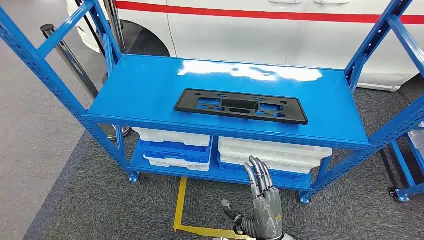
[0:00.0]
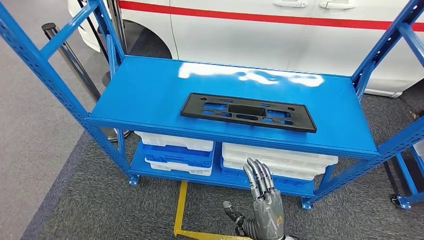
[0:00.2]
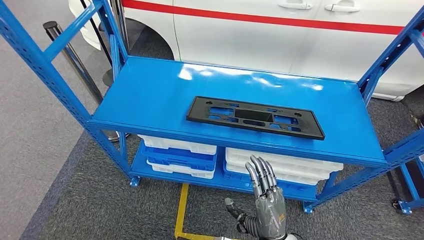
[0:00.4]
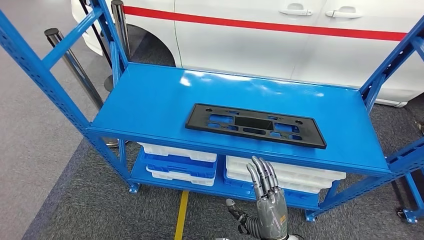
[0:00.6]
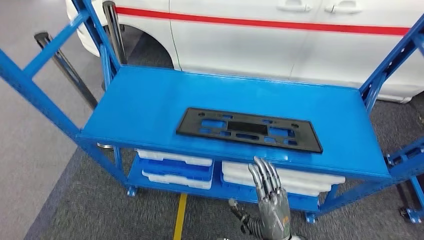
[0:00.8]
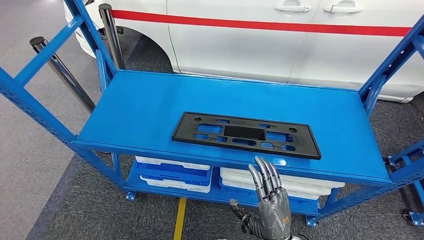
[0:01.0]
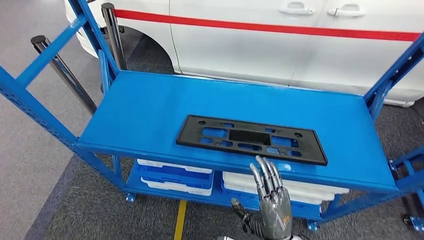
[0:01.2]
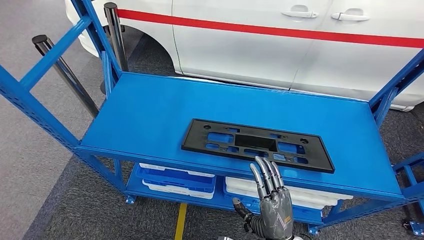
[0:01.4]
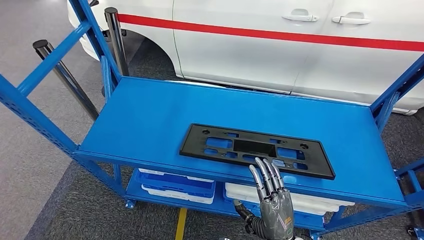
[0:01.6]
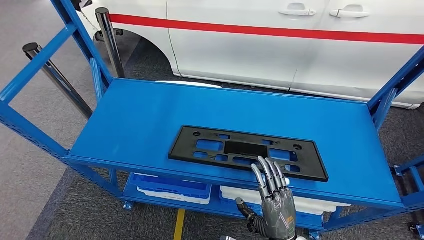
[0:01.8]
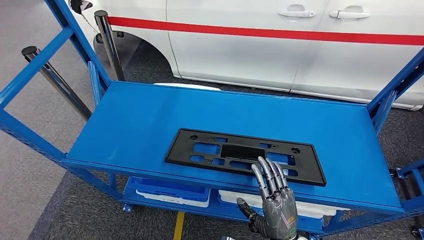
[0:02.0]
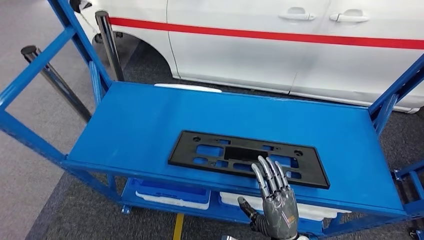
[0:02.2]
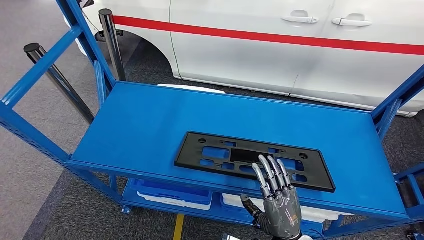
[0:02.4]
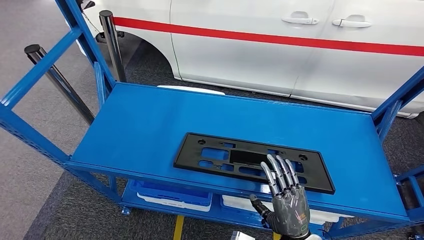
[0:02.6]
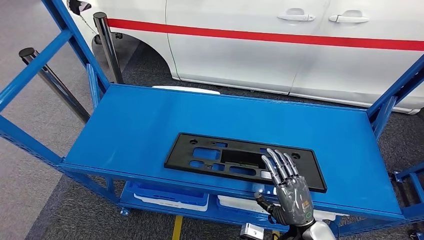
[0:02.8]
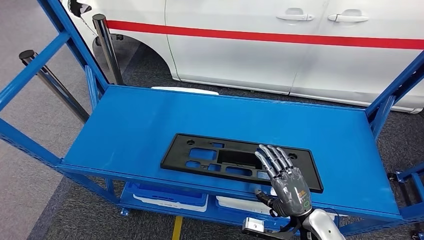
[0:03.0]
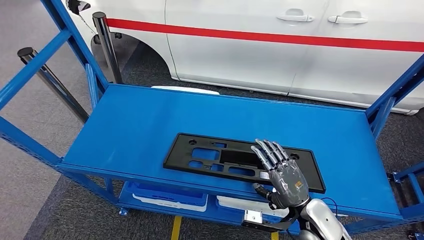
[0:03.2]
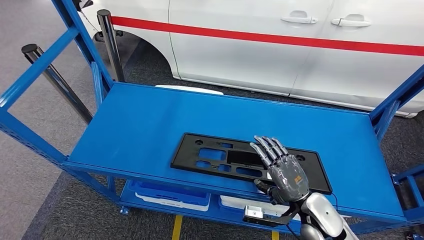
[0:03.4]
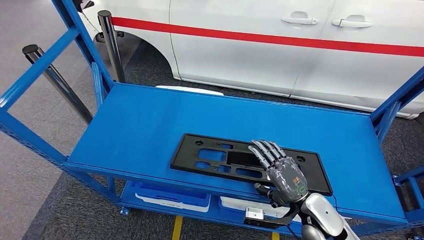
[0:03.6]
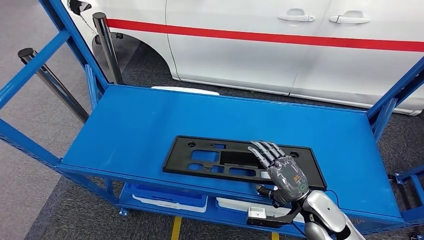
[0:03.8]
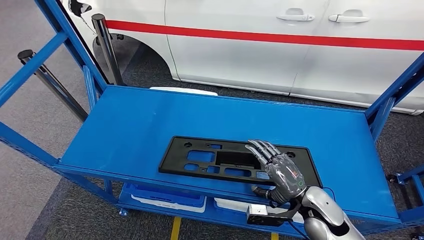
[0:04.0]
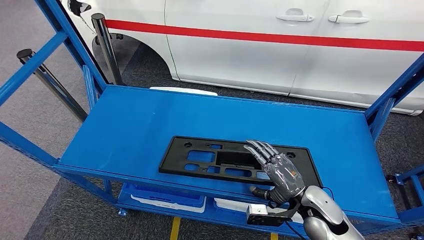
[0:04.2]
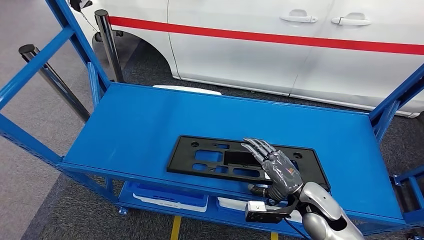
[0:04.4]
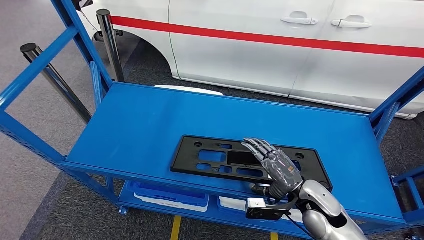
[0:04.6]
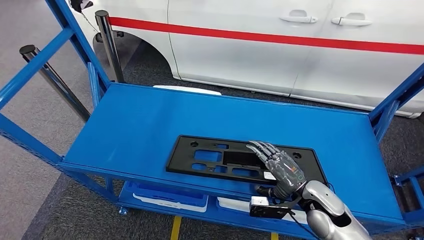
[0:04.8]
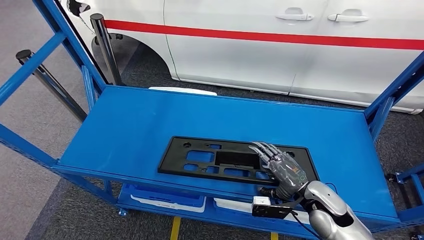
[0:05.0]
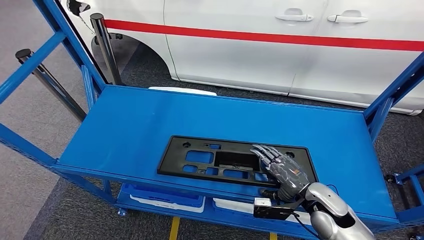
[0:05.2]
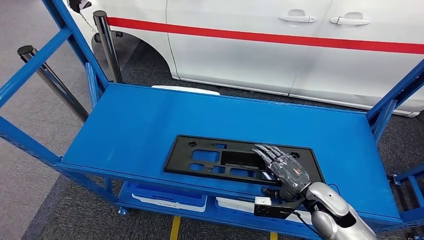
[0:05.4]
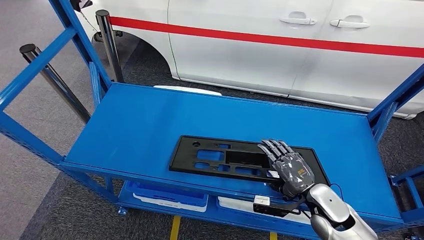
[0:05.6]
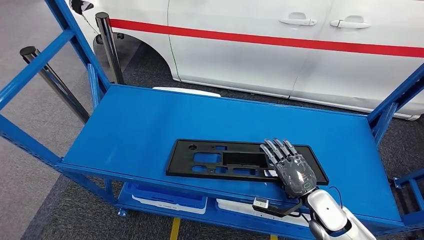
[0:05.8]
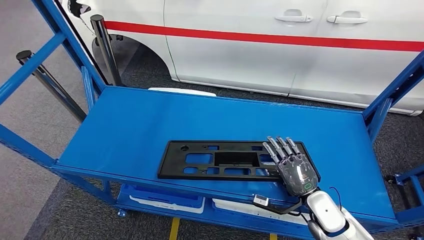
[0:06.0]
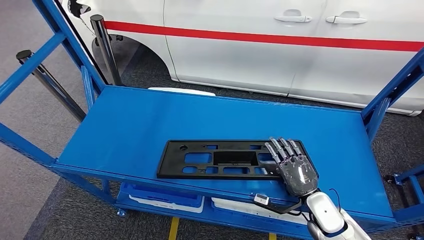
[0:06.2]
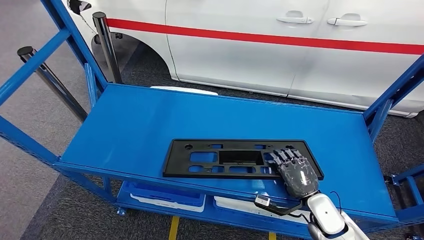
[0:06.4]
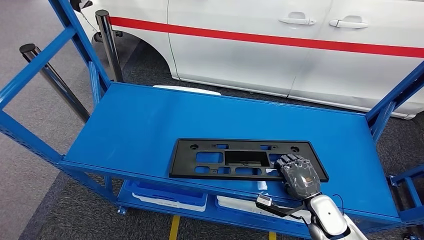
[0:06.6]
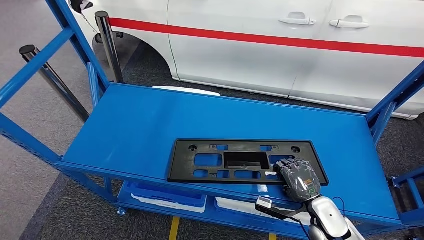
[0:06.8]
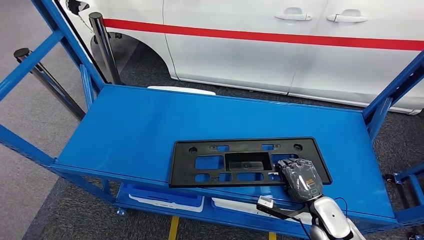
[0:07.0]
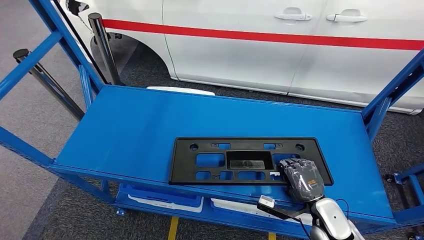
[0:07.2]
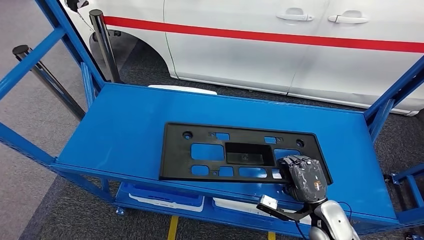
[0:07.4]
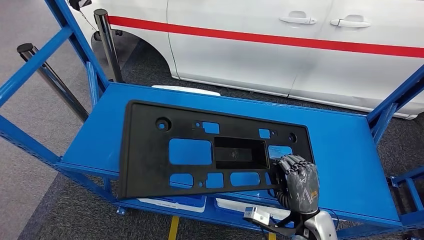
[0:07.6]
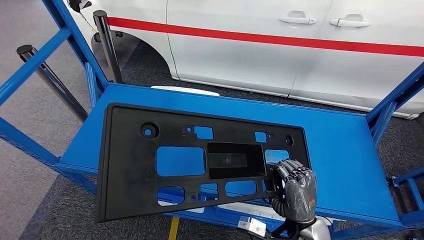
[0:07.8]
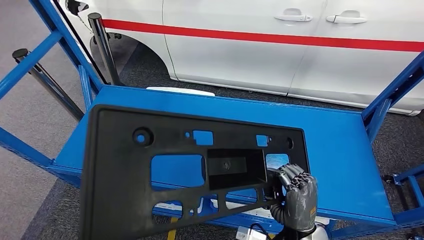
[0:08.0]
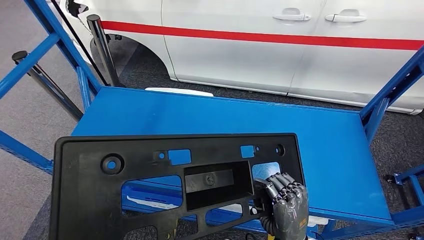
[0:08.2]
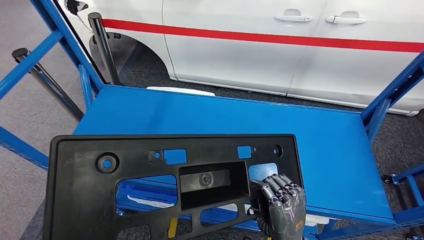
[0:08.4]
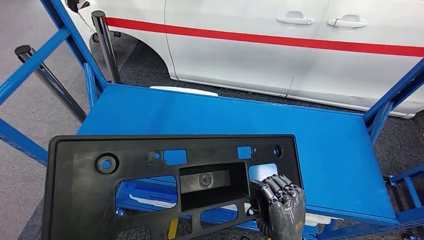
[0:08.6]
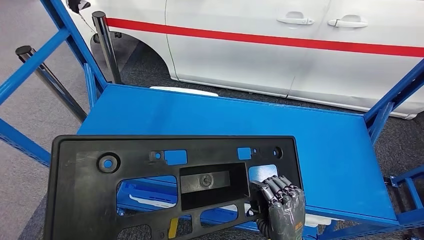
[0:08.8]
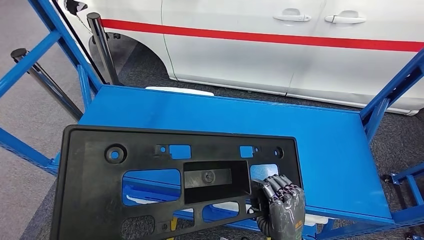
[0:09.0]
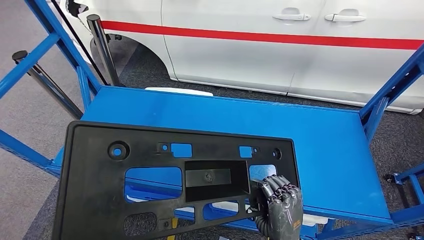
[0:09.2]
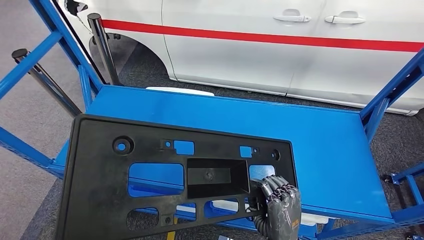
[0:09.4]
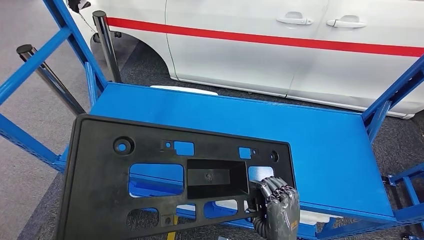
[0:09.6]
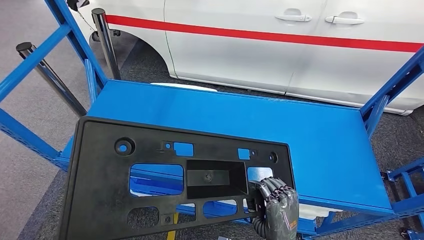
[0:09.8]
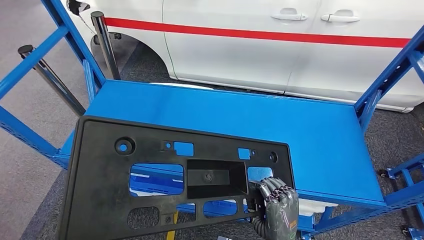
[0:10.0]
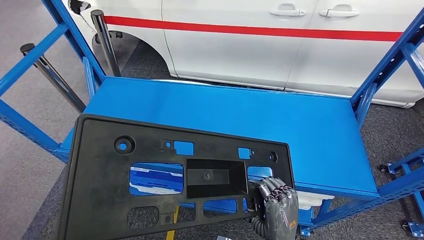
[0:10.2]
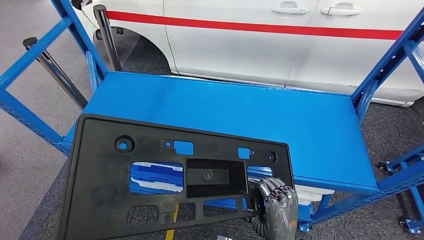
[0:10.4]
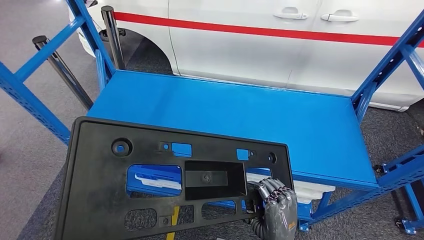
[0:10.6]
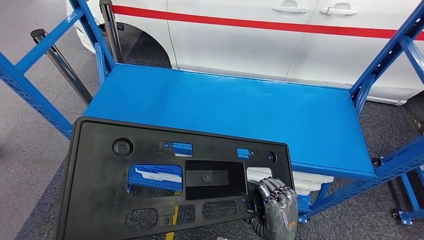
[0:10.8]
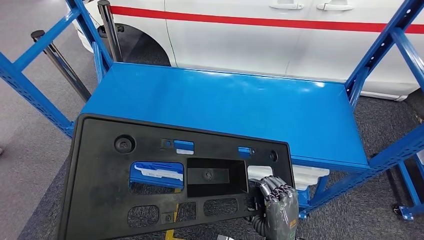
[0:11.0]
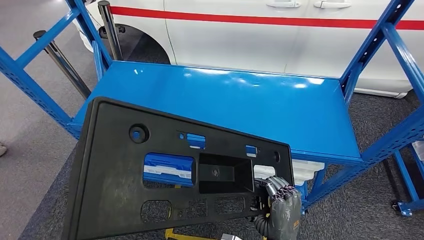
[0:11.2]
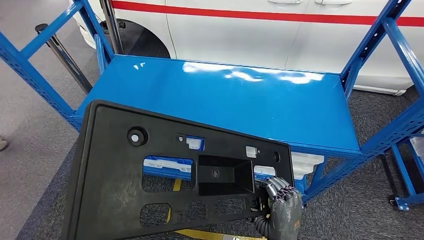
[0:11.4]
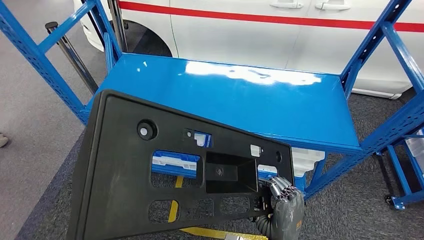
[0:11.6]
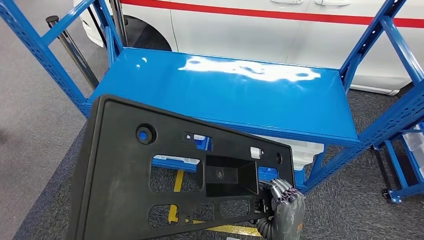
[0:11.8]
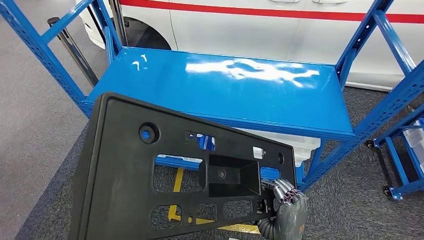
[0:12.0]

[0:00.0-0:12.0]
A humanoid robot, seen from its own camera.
Step, 0:00.0 to 0:11.6: Pick up the large material from the shelf.
0:03.0 to 0:04.4: The right hand changes place by about 5 cm.

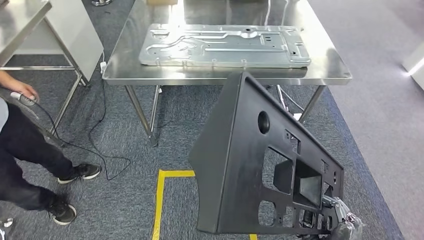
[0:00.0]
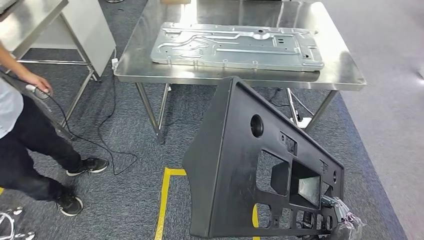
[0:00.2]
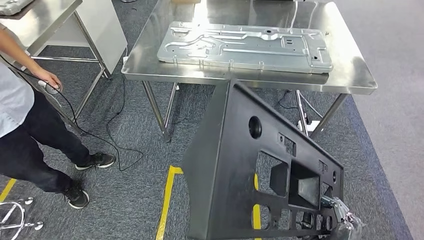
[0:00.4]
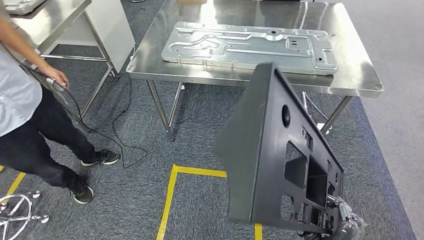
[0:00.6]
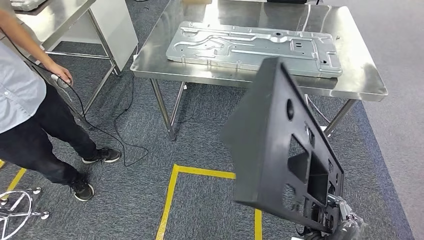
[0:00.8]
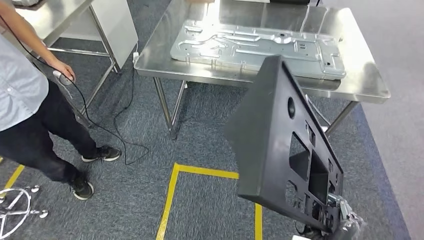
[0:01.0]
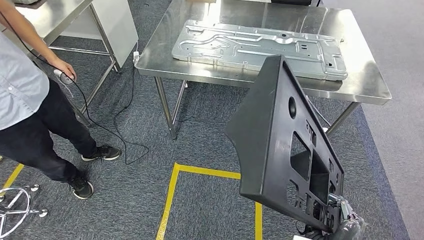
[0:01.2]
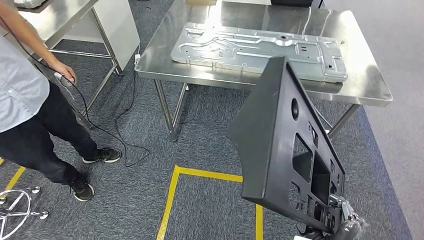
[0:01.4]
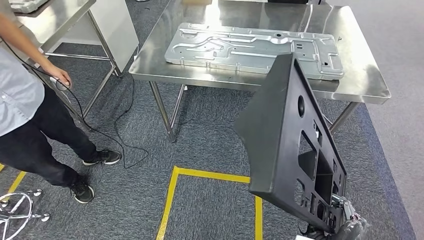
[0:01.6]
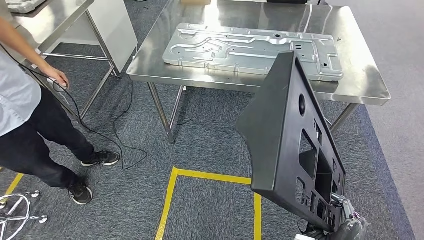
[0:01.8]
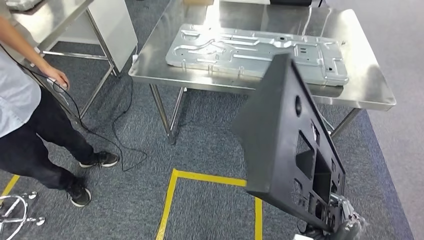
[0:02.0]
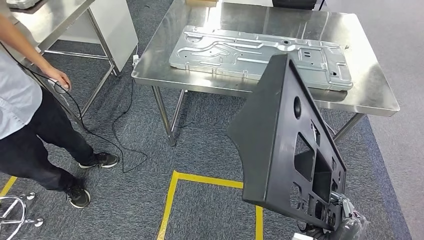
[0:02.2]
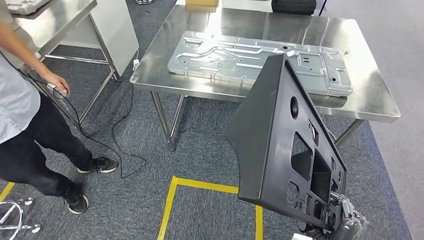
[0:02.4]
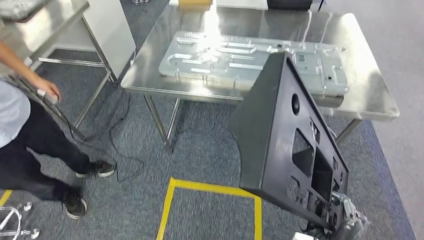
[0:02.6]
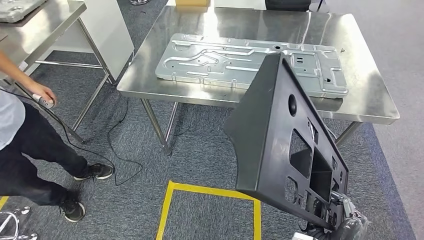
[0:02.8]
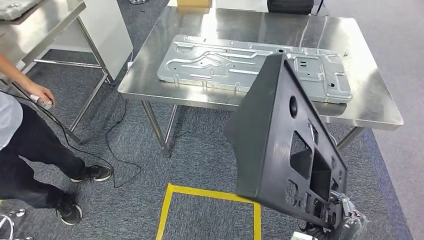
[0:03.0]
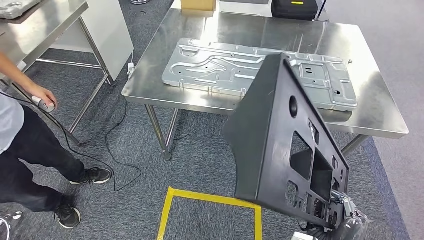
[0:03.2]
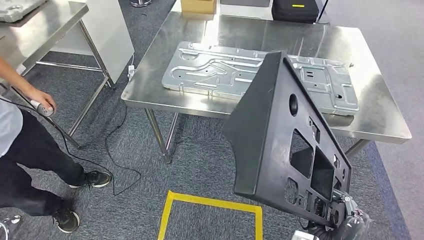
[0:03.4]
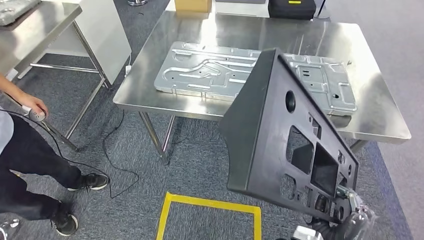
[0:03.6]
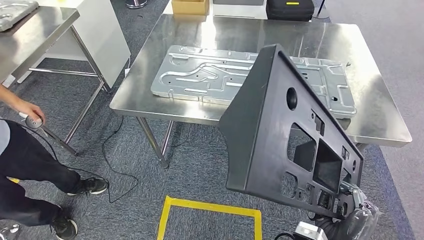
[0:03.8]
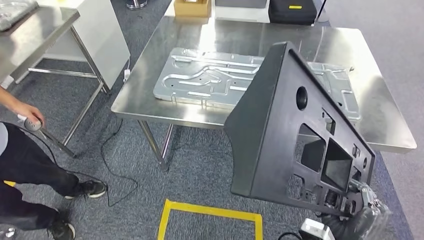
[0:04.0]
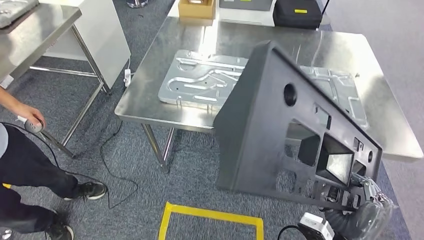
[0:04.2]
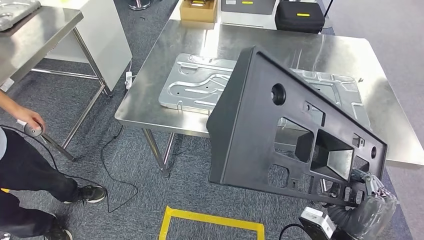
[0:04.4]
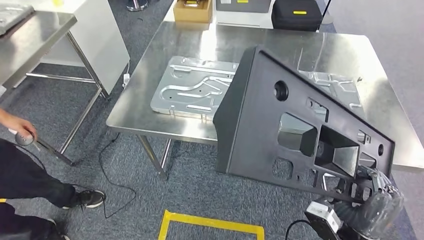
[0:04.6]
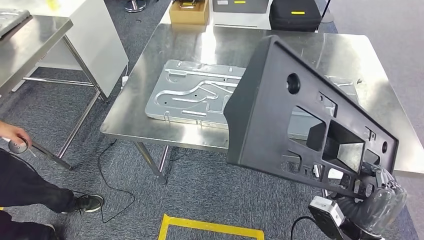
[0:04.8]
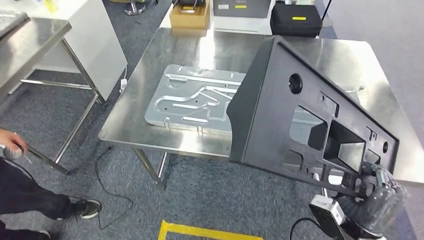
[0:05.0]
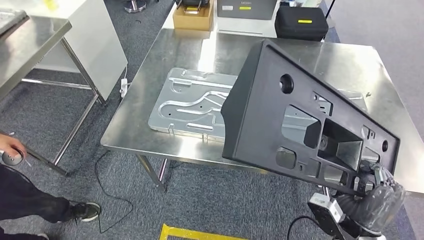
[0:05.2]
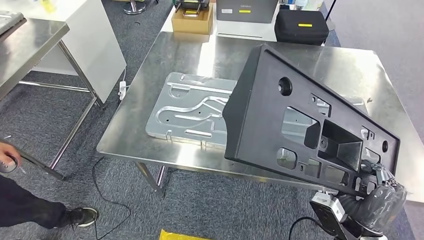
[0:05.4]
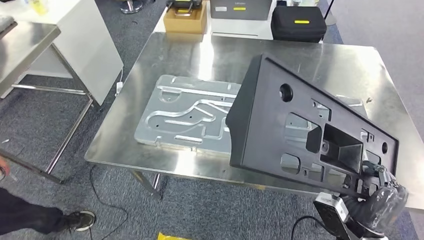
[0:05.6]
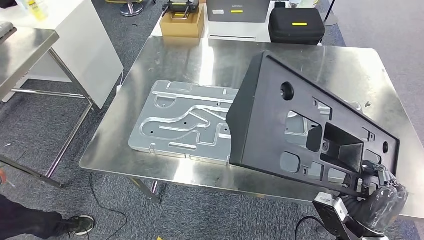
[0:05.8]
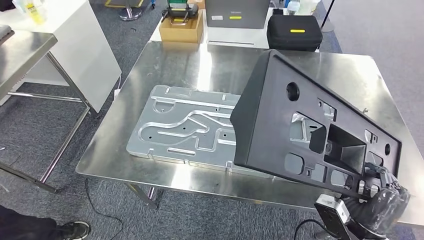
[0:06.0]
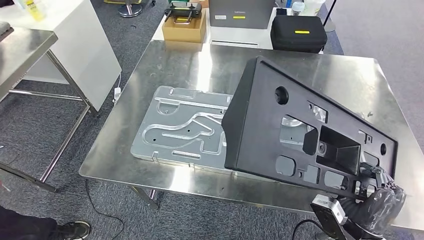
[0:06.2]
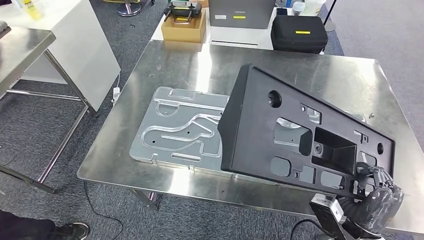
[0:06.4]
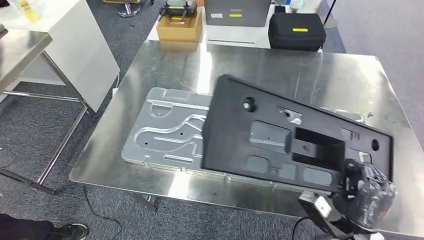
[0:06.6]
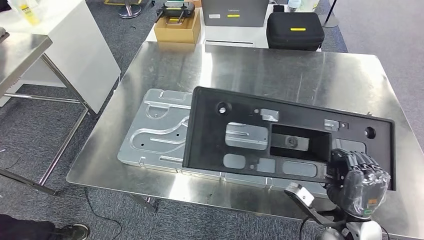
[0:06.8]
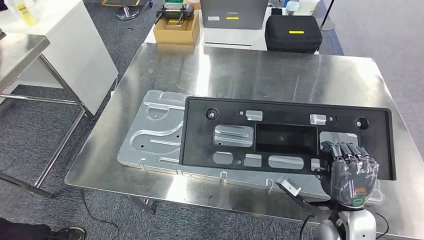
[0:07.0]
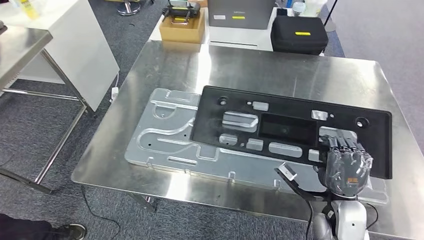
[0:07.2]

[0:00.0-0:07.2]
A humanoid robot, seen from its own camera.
Step, 0:00.0 to 0:02.4: Move the large material to the workbench.
